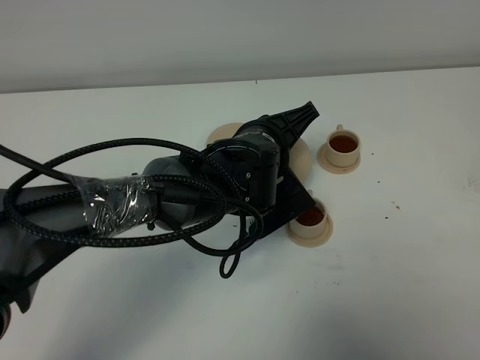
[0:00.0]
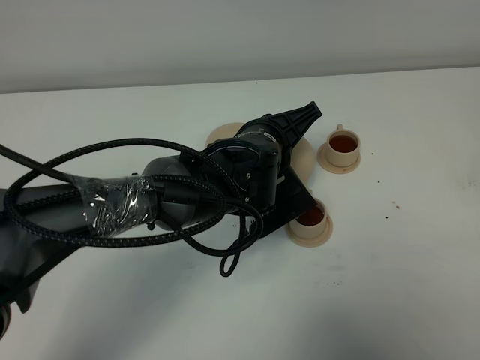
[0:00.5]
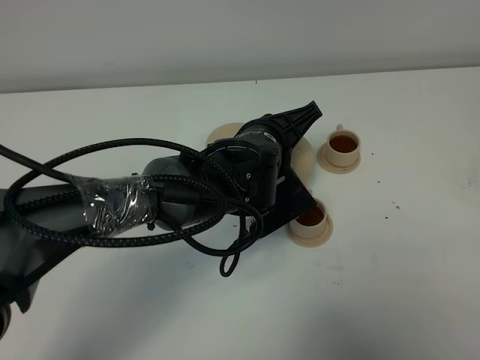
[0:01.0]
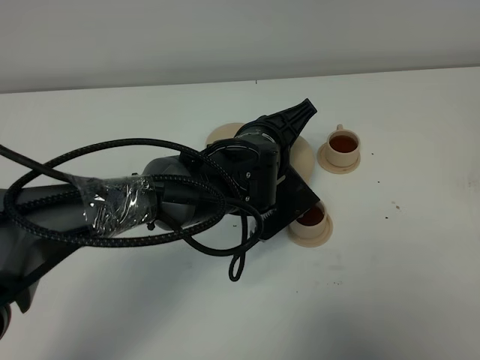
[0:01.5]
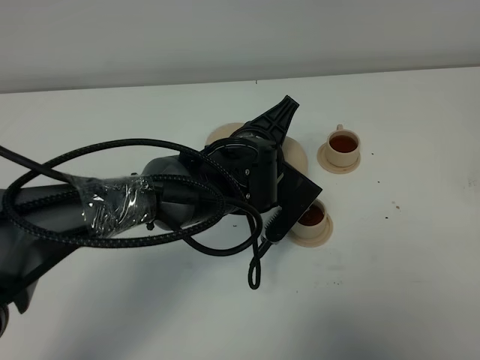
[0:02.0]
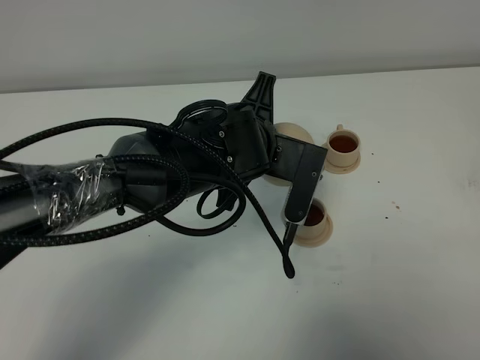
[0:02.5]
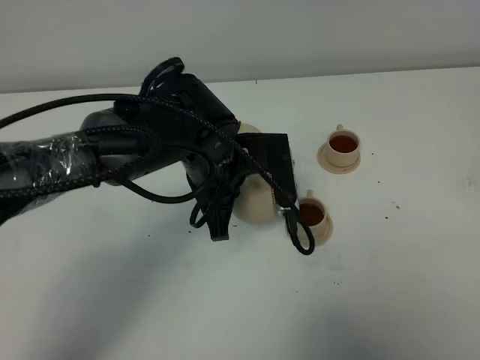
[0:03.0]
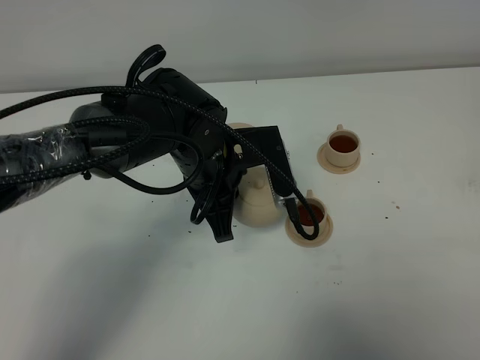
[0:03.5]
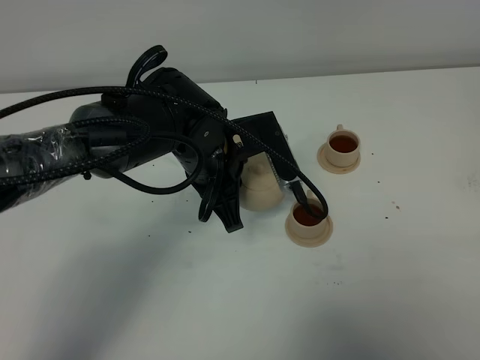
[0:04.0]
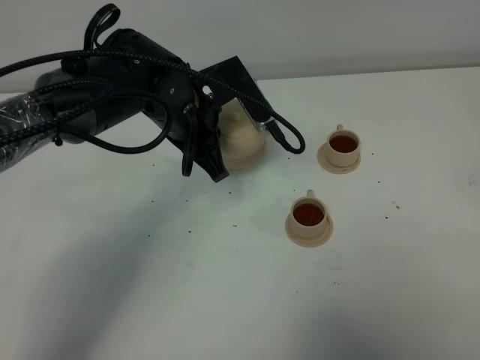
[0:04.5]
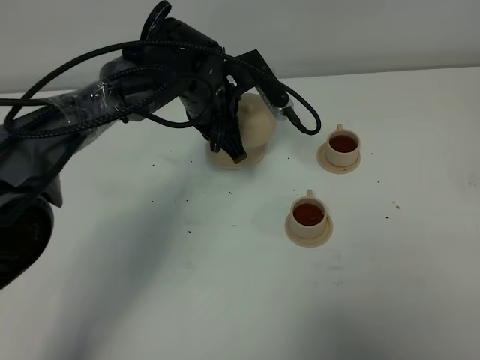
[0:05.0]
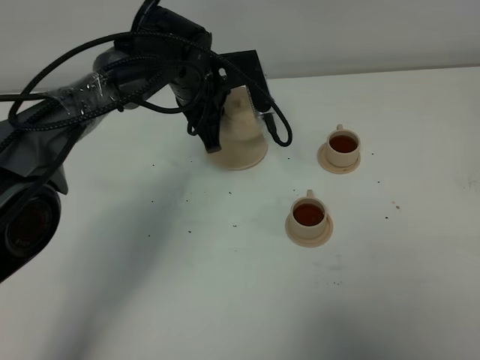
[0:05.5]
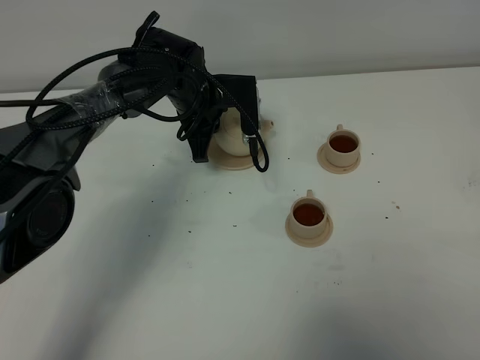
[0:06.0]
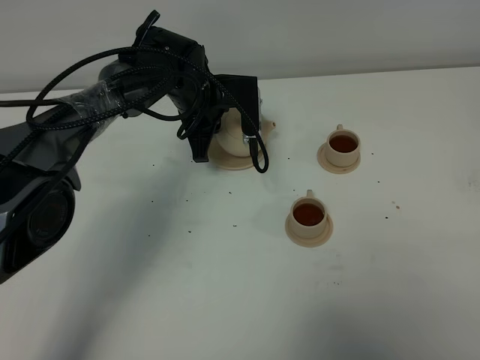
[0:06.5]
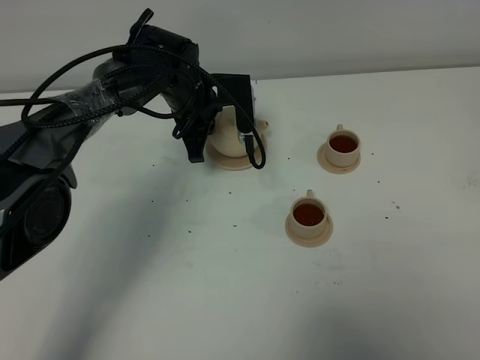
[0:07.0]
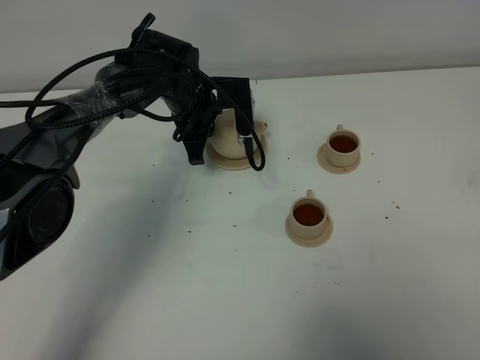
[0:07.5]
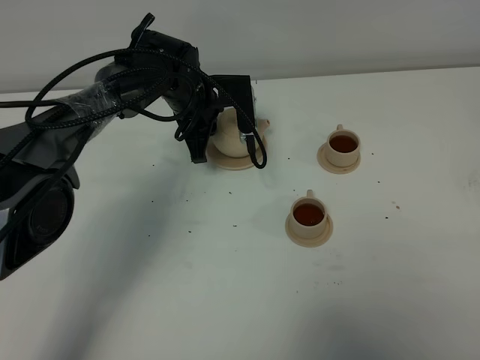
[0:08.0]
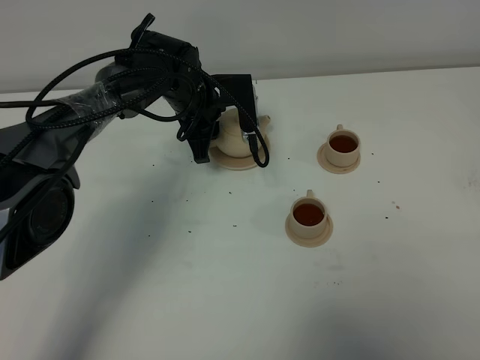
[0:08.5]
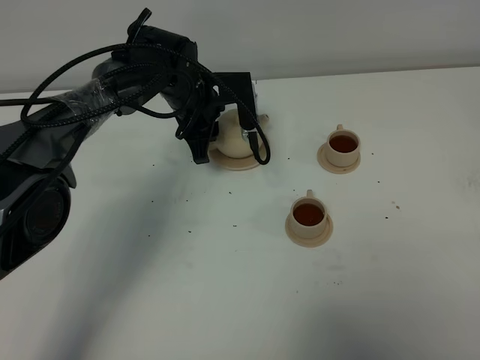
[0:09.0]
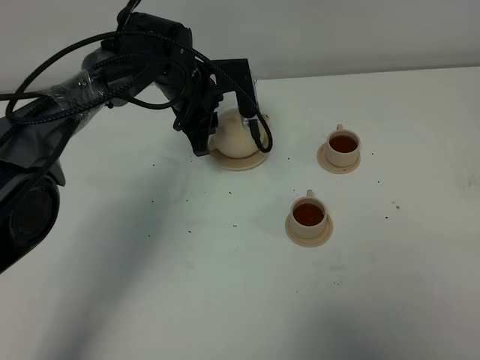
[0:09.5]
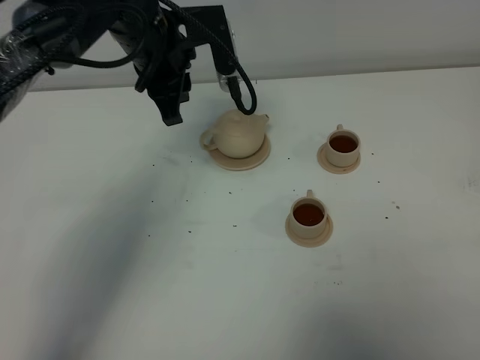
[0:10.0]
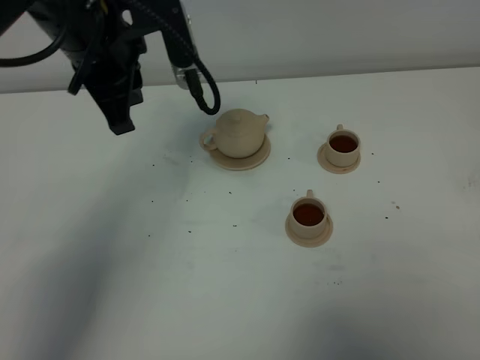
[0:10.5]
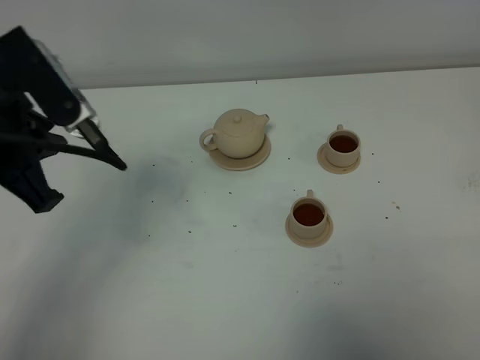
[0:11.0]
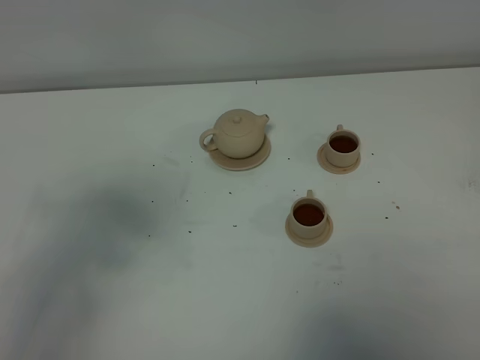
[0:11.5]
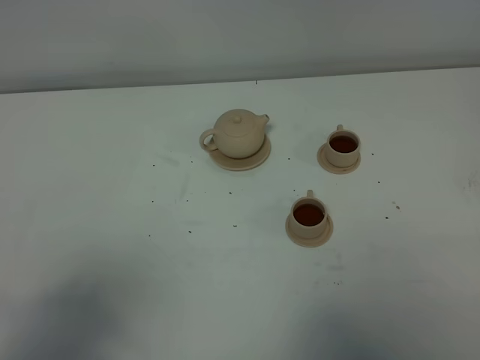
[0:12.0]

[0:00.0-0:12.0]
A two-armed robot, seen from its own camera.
Task of the whole recording: grasp the brown teapot and pour the tea into the two brown teacups one by one, put the brown teapot back in its original place.
Step, 0:00.0 to 0:02.0: Pour tea into the teacup with the left gripper.
0:00.0 to 0:02.0: The grippers make only small movements.
0:02.0 to 0:04.0: The left gripper travels to the left by some 5 cm.
0:04.0 to 0:06.0: The left gripper heads forward, covering roughly 15 cm.
0:06.0 to 0:08.0: The left gripper opens up.
0:08.0 to 0:10.0: The left gripper shifts about 15 cm upward, and opens its fingers.
0:10.0 to 0:12.0: The left gripper goes about 40 cm backward, and closes its fingers.

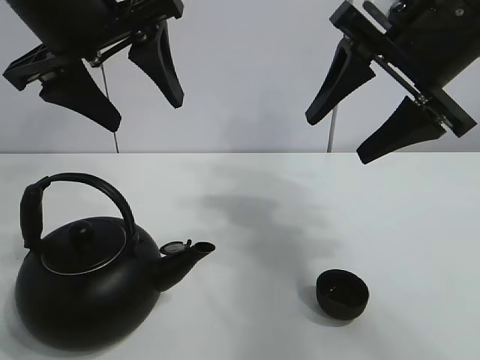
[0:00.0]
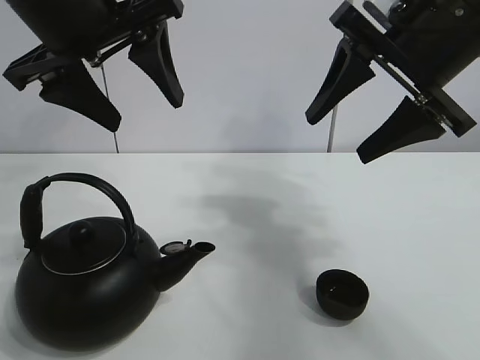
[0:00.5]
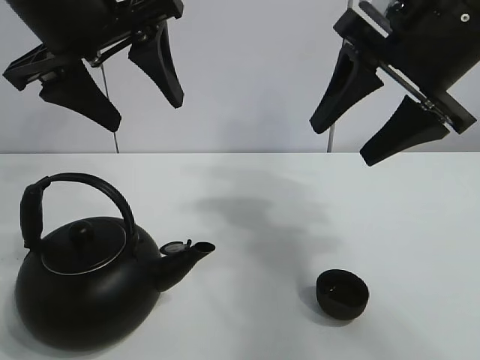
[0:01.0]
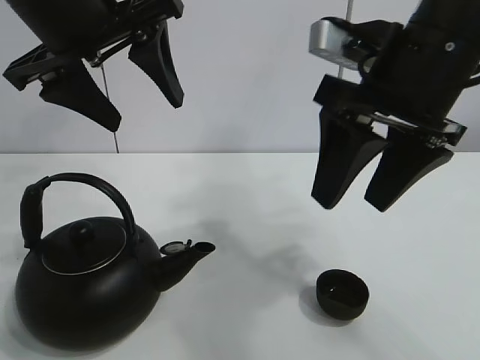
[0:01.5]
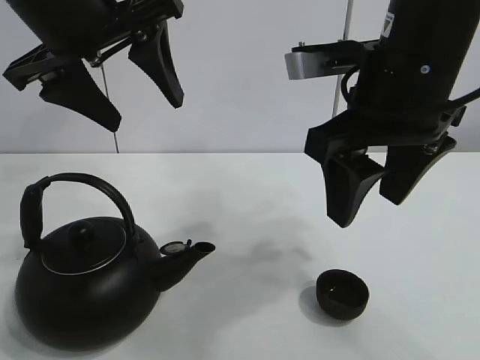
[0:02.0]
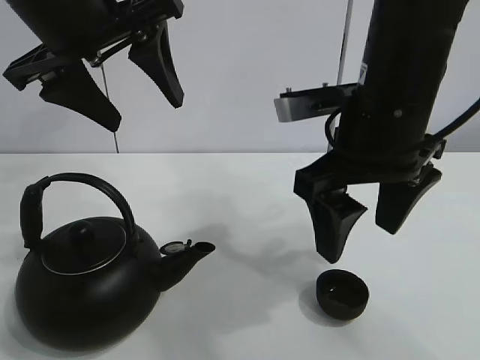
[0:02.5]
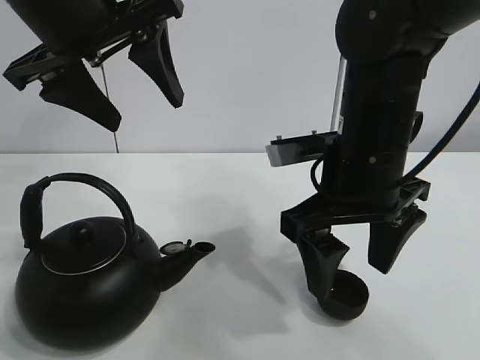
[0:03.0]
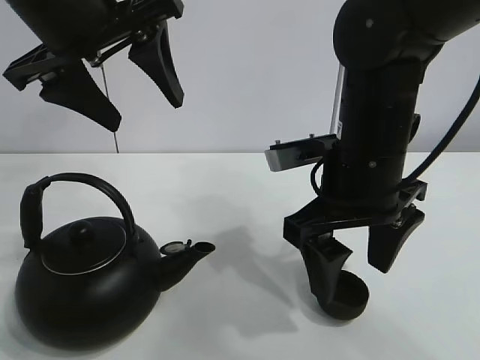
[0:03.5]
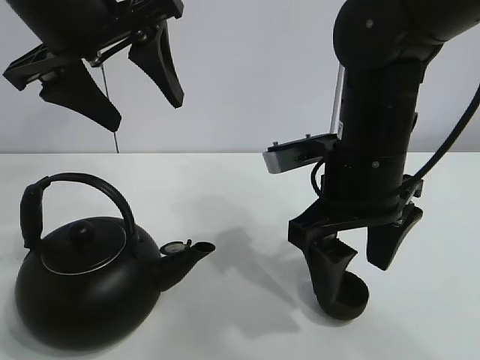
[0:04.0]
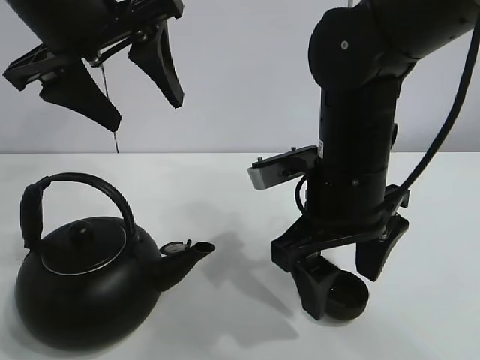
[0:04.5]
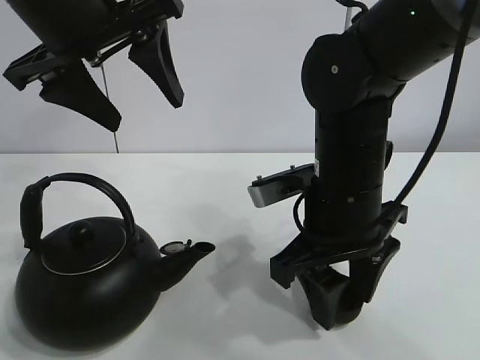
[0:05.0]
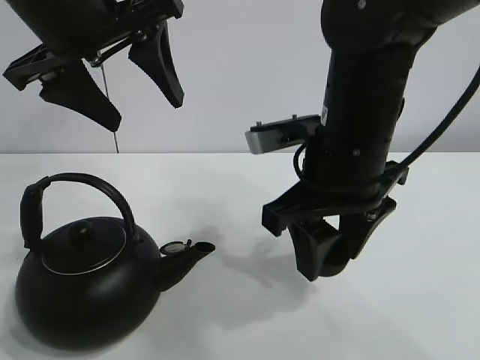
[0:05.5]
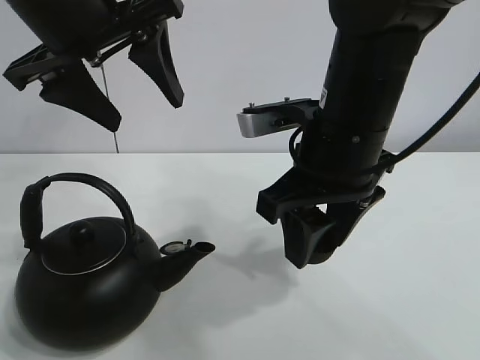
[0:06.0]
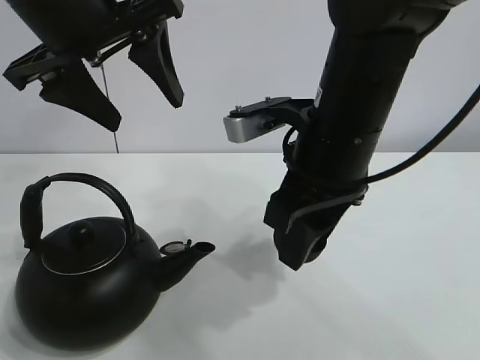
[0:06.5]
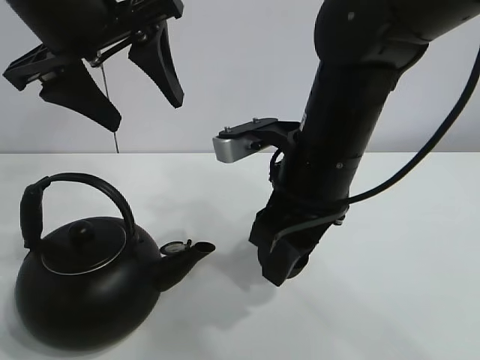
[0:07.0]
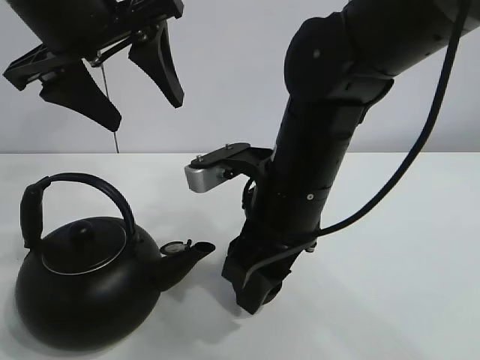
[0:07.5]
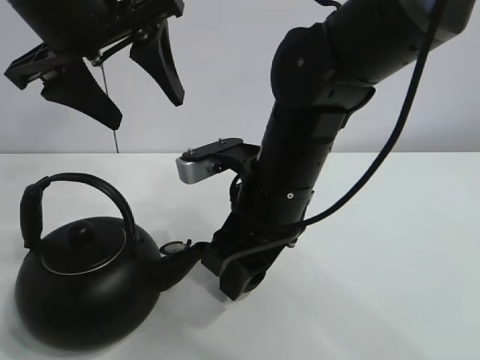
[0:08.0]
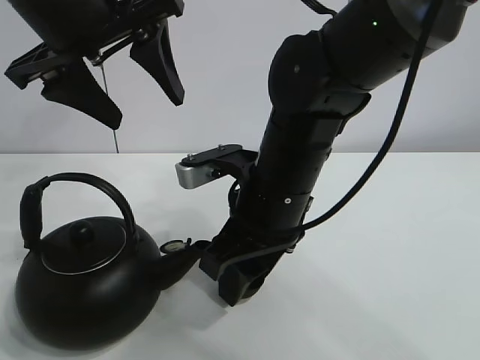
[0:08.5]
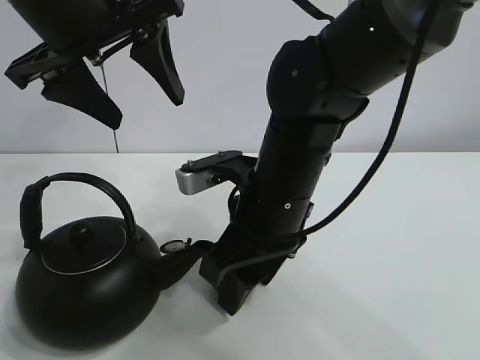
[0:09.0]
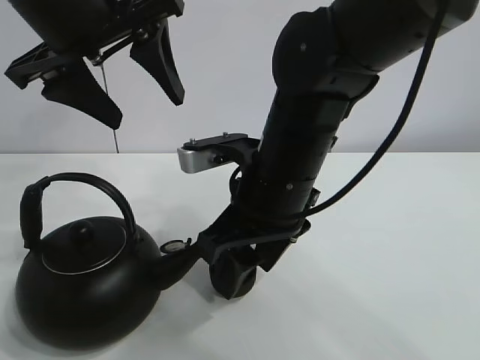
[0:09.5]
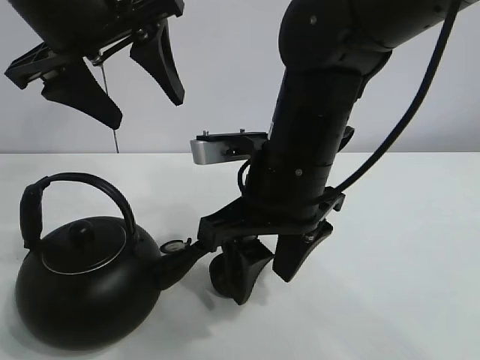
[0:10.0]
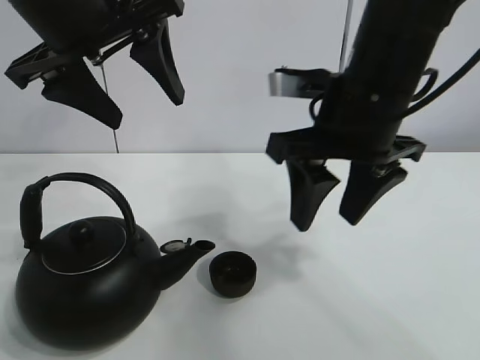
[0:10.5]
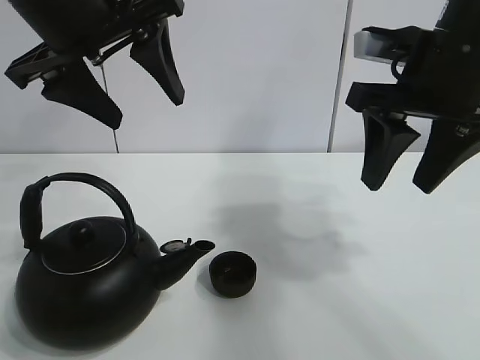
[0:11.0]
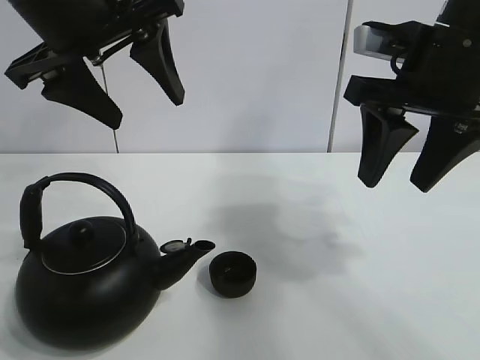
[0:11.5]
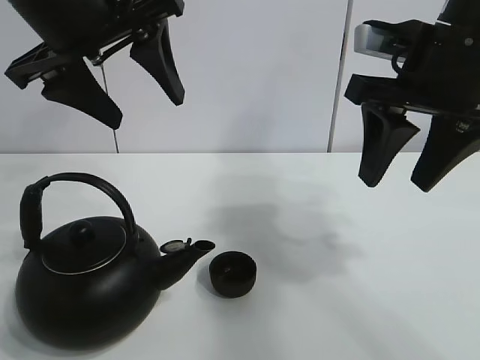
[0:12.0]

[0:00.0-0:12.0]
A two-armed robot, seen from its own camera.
Task of the whole recording: pour tea into the teacup.
Step, 0:00.0 to 0:04.5: Pick up the teacup with the right gripper.
Step, 0:05.5 to 0:09.0: Place the teacup in the center of view with the right gripper.
0:02.0 to 0:04.0: The right gripper travels downward by about 10 cm, and opens its fingers.
0:04.0 to 0:06.0: The right gripper closes up.
0:06.0 to 0:08.0: The right gripper goes some 5 cm downward.
0:08.0 to 0:10.0: The grippers move only a little.
0:10.0 to 0:12.0: The right gripper shifts some 15 cm to the right and upward.

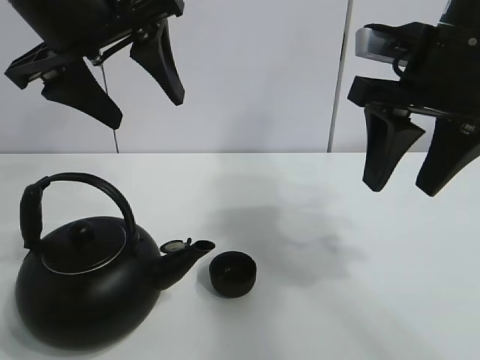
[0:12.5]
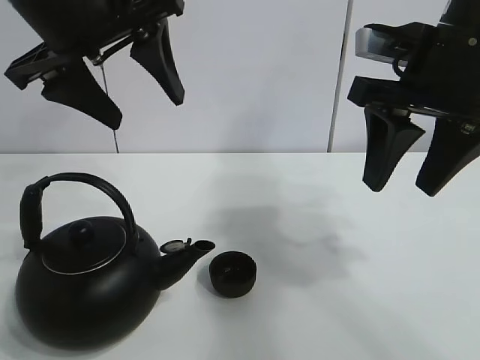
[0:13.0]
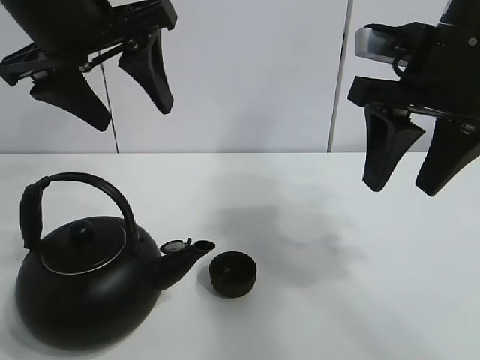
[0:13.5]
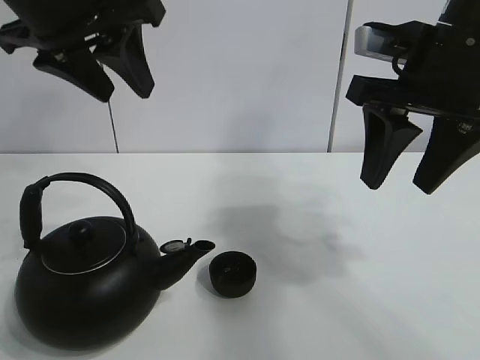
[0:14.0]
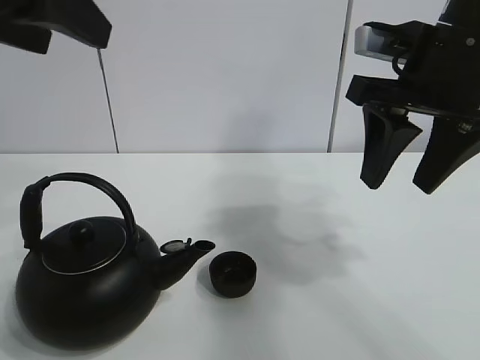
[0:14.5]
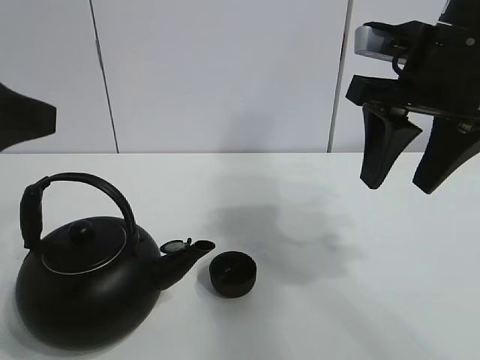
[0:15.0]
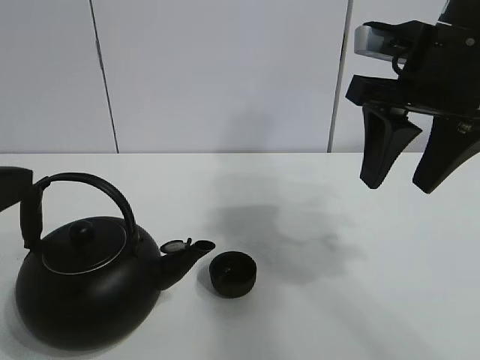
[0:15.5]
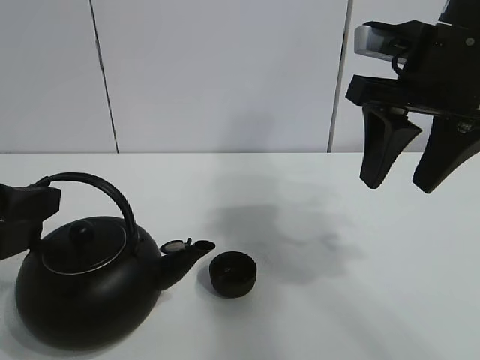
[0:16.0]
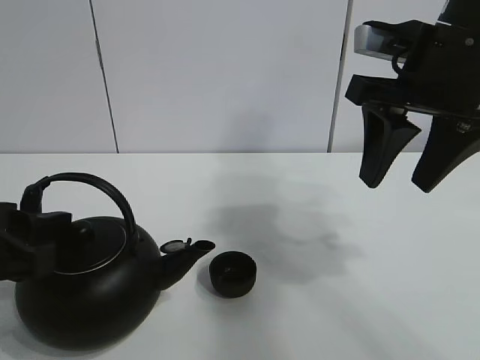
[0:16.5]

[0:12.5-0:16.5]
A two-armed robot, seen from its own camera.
Task of the whole recording: pour tea into the teacup.
0:12.5 to 0:14.5: The left gripper moves backward and to the left, roughly 10 cm, and closes, then reopens.
0:14.5 to 0:16.5: The left gripper shifts approximately 20 cm downward.
